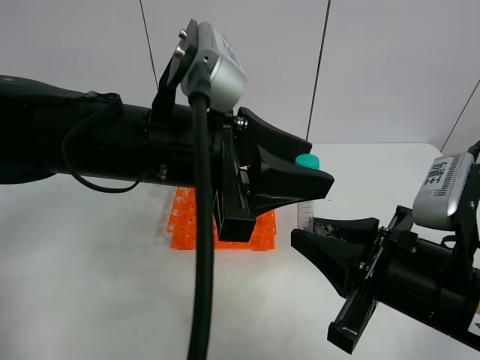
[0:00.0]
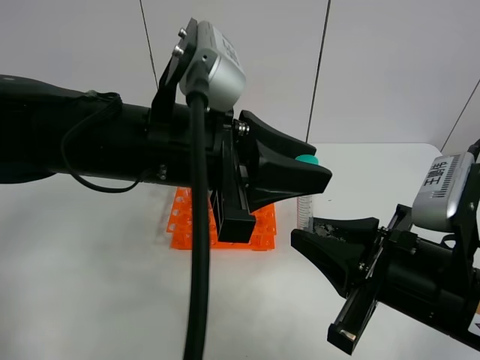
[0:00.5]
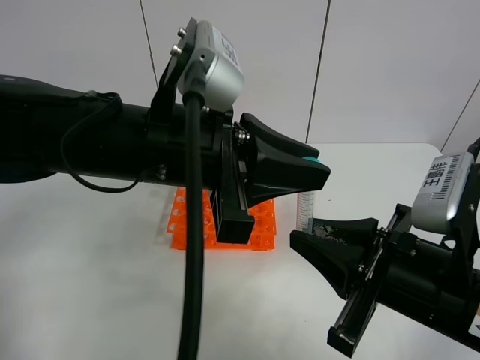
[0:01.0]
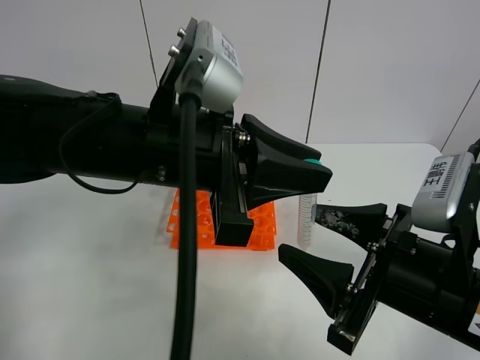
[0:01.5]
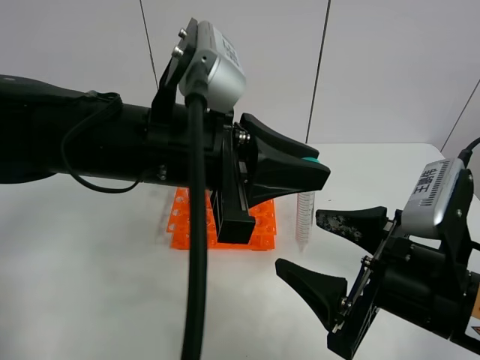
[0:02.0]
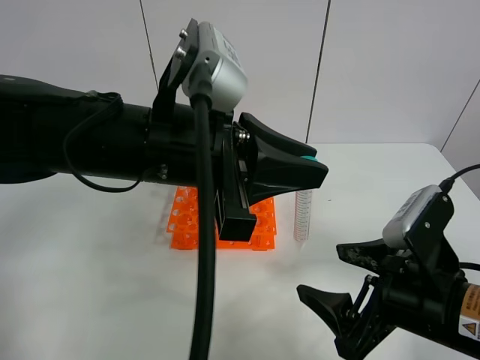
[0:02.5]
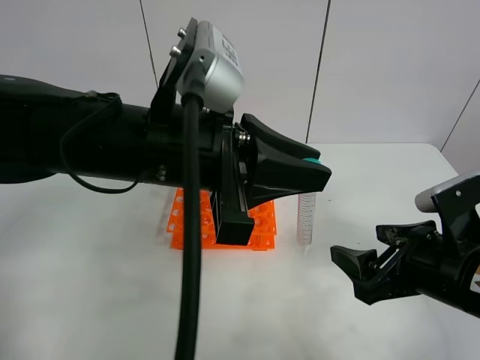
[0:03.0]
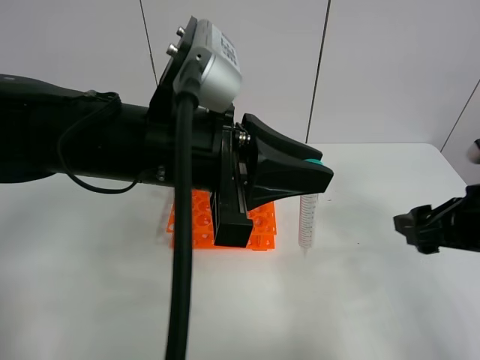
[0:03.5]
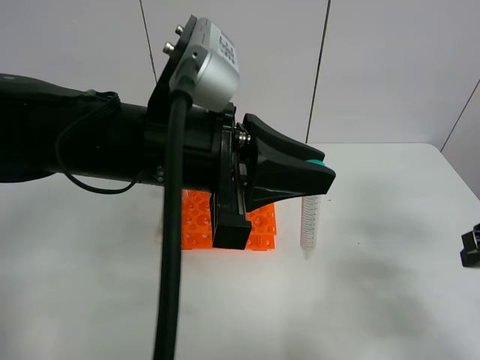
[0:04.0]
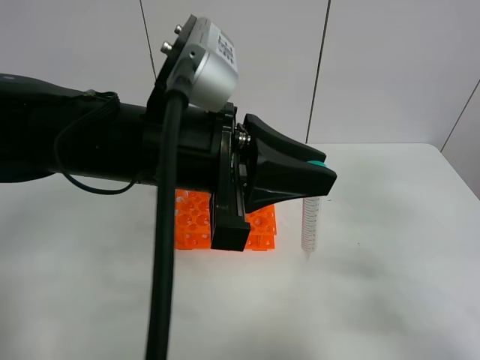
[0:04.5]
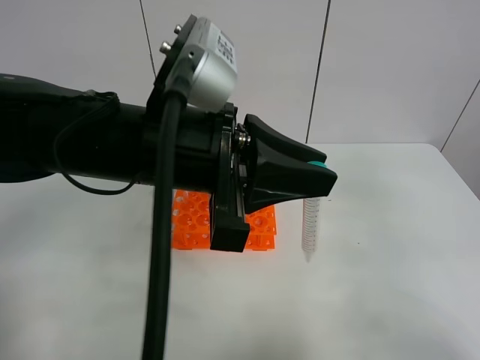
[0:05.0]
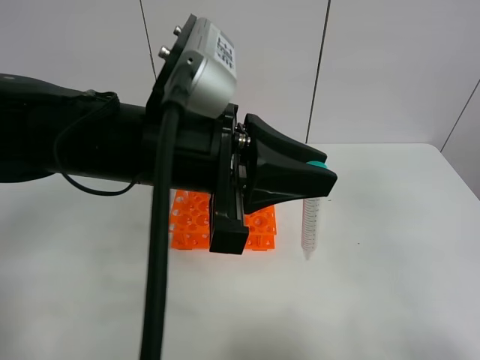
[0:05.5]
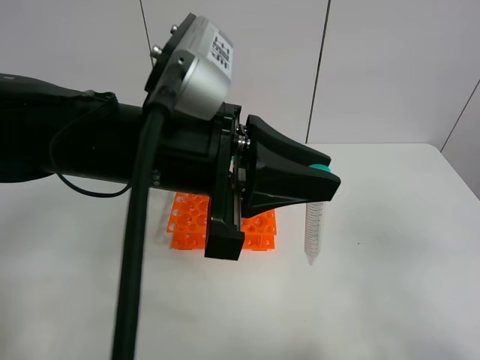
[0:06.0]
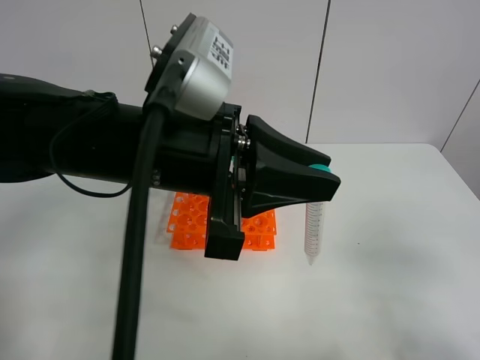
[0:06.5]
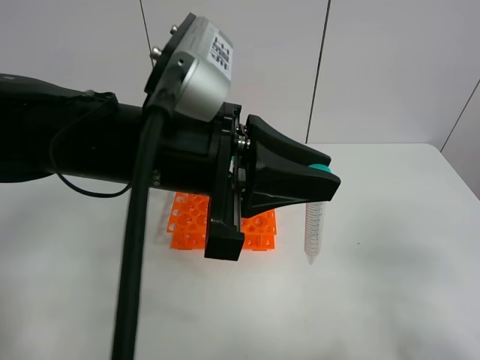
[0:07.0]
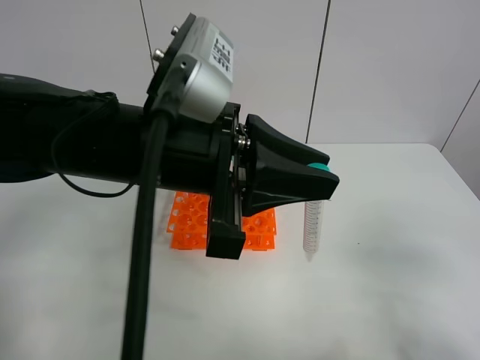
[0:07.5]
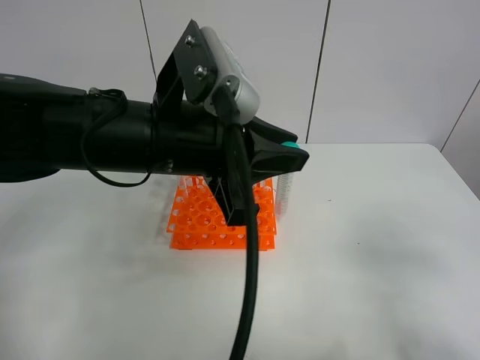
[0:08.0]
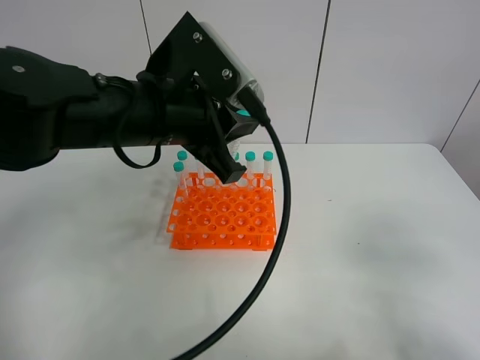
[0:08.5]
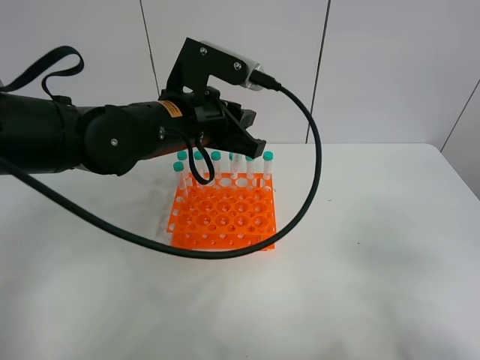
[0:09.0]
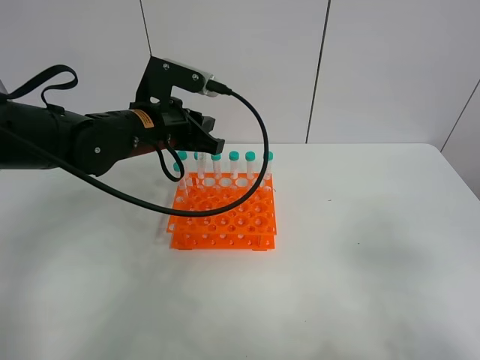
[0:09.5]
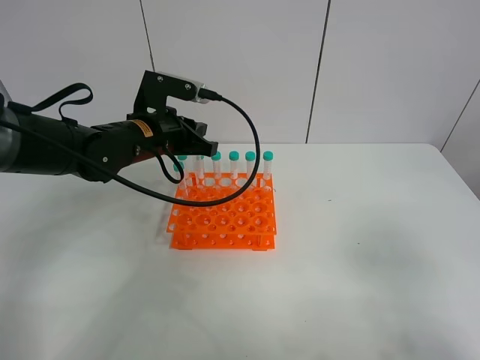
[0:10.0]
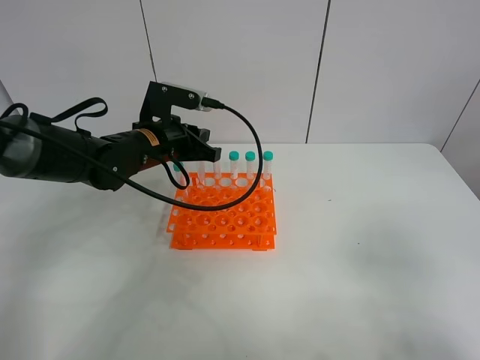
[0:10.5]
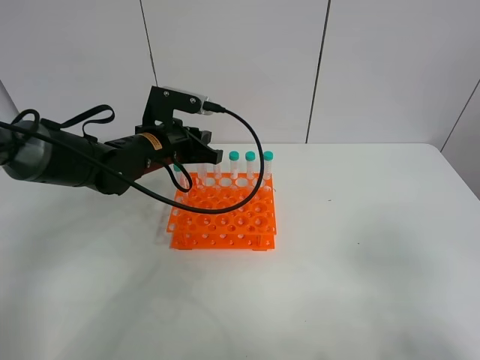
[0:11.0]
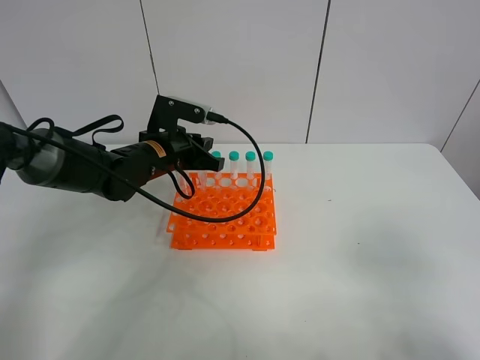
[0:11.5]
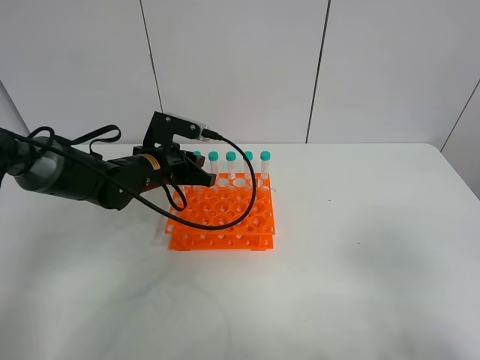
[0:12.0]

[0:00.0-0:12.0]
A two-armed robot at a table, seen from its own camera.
Task of the whole recording: Put the test tube on the table back onto the test tube rack.
0:00.0 to 0:02.0: The left gripper closes its fingers. The right gripper opens.
0:02.0 to 0:04.0: The right gripper shifts about 15 cm to the right.
0:04.0 to 0:06.0: The right gripper moves backward and upward, roughly 15 cm.
0:06.0 to 0:08.0: The right gripper shifts approximately 5 cm downward.
0:08.0 to 0:10.0: The left gripper travels forward, downward and to the left by approximately 20 cm.
0:10.0 to 0:12.0: The left gripper moves downward, about 5 cm.

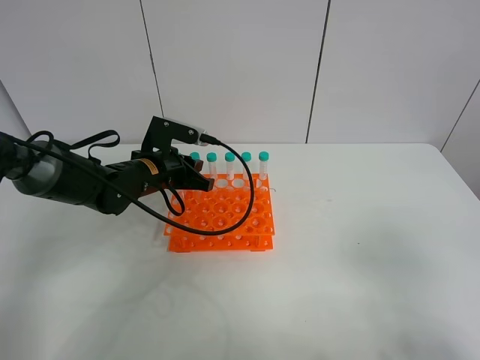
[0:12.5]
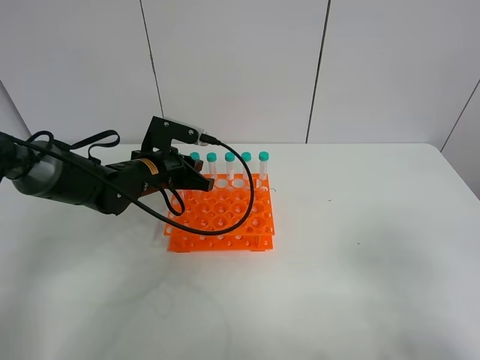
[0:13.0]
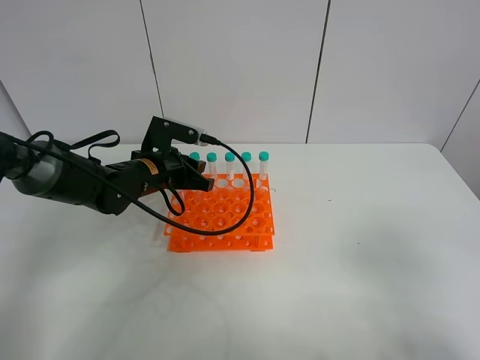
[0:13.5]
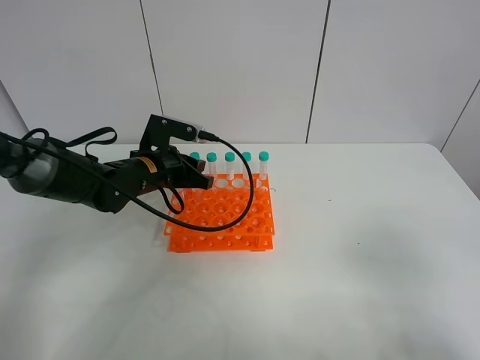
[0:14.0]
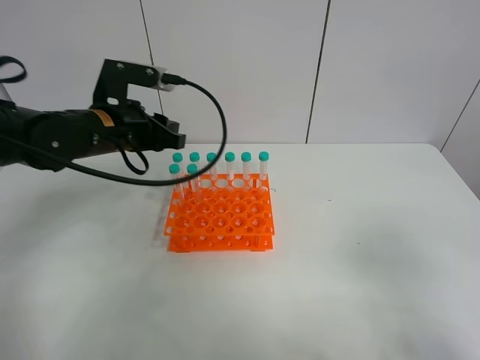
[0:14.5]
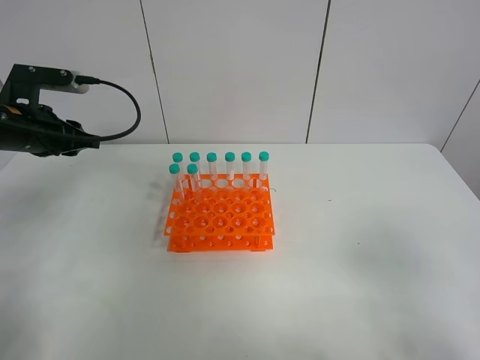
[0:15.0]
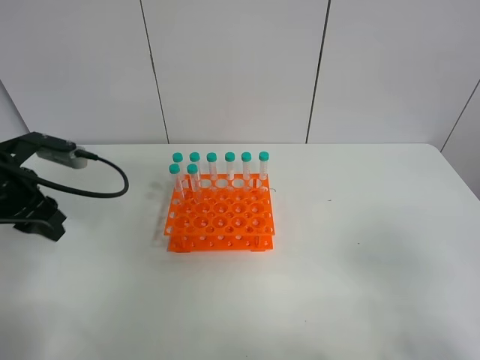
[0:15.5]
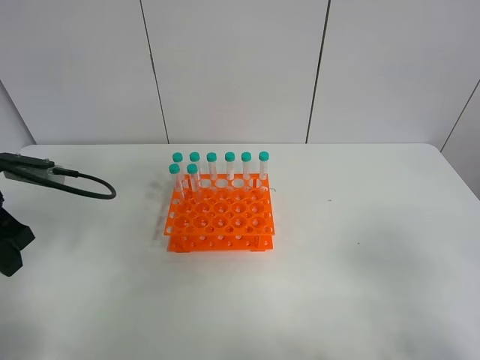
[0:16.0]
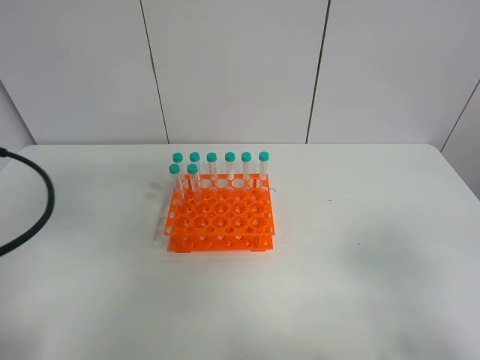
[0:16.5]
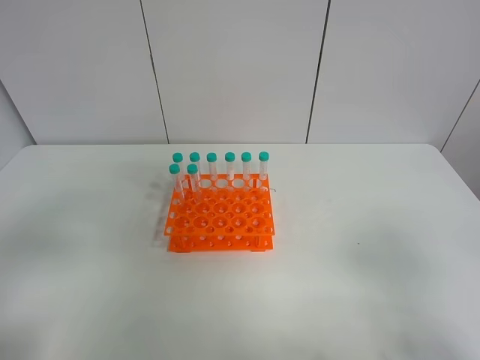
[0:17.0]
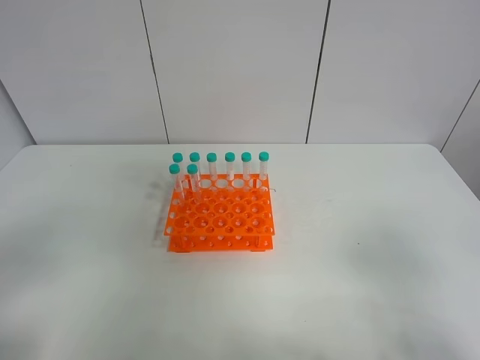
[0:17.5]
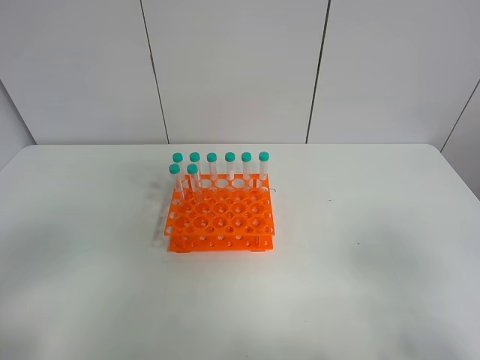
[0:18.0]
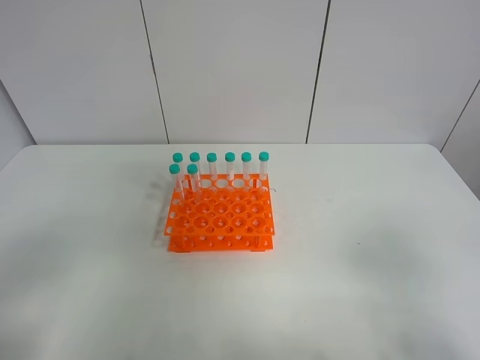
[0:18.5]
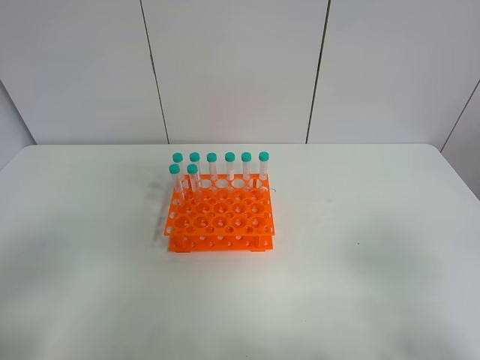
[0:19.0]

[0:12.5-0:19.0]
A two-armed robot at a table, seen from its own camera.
Task of the whole recording: Put the test tube on the table back onto the test tube rack.
0:12.5 to 0:14.5: The left gripper travels upward by approximately 10 cm, and opens up.
0:14.5 to 0:17.0: The left gripper moves backward and to the left, approximately 30 cm.
